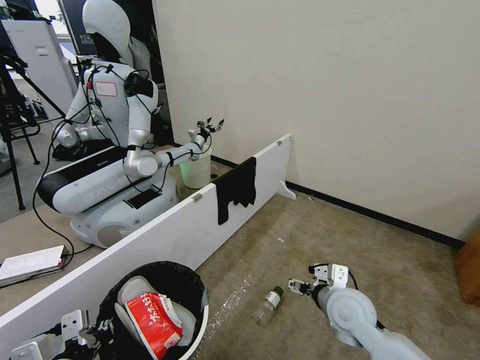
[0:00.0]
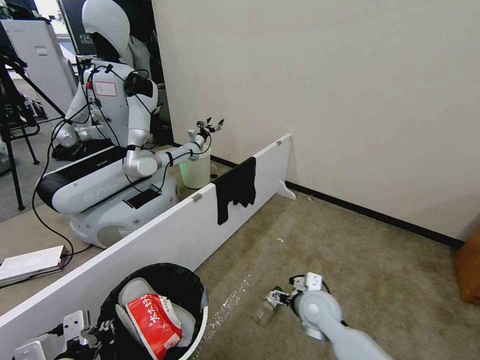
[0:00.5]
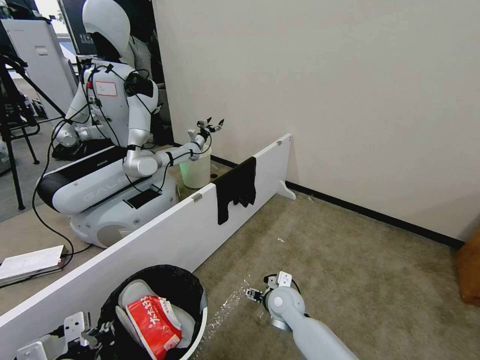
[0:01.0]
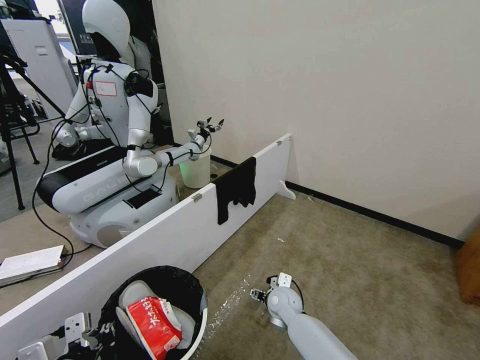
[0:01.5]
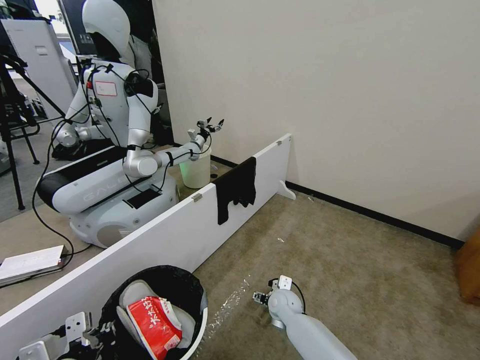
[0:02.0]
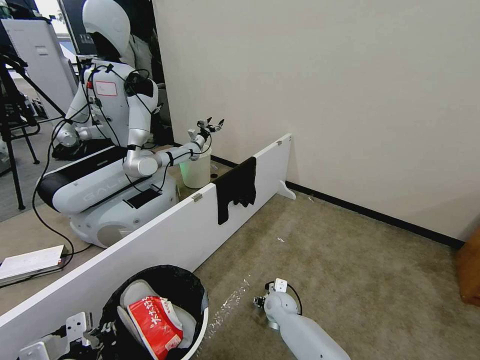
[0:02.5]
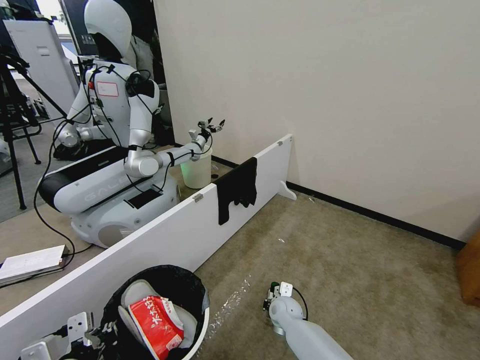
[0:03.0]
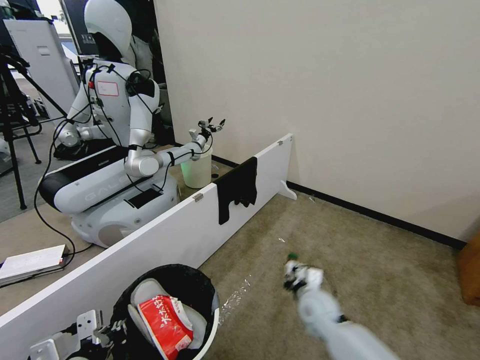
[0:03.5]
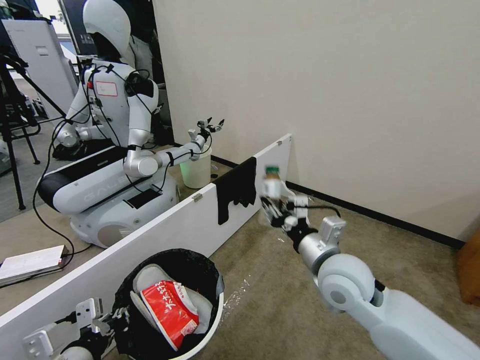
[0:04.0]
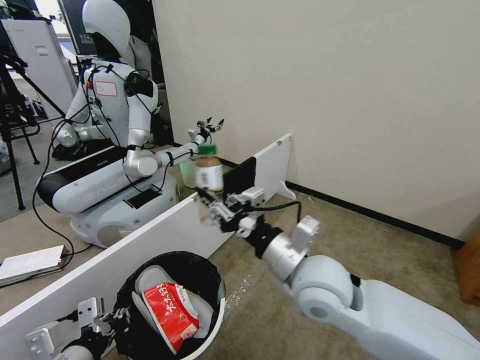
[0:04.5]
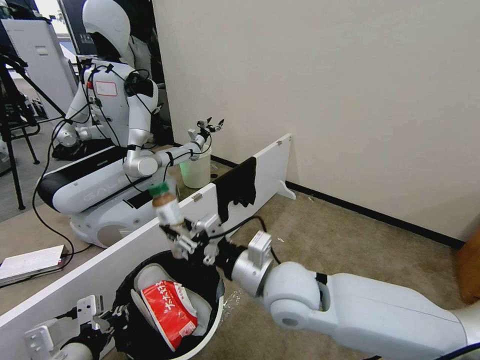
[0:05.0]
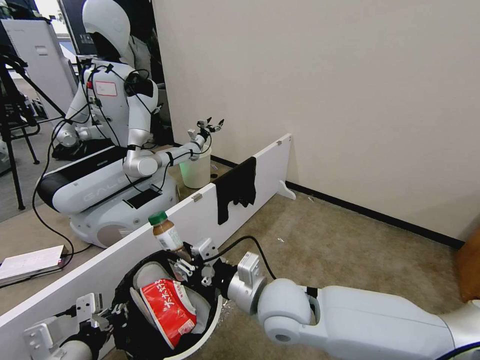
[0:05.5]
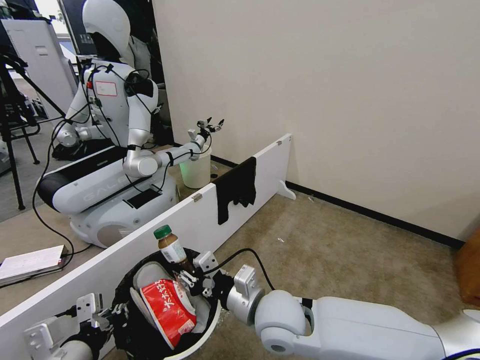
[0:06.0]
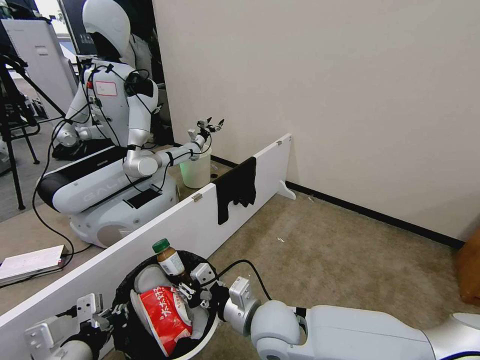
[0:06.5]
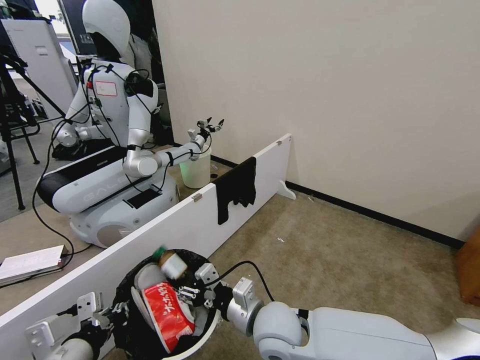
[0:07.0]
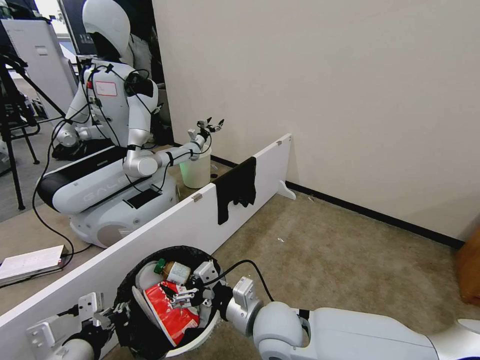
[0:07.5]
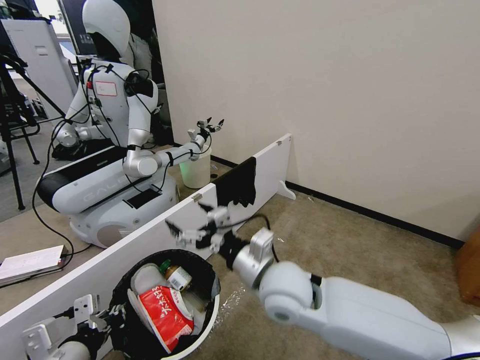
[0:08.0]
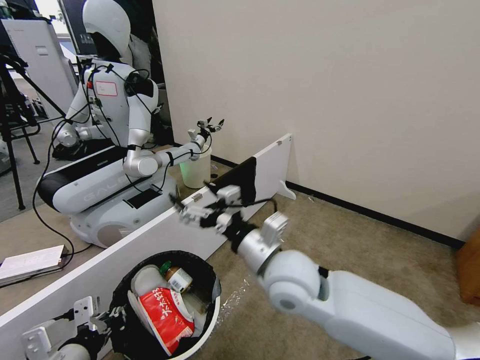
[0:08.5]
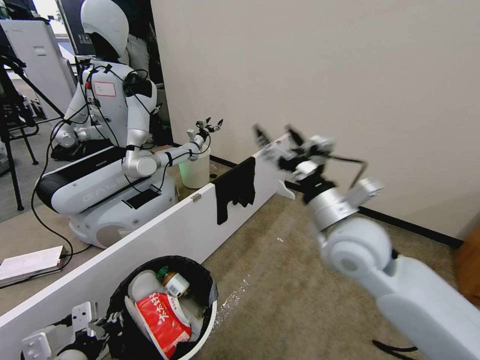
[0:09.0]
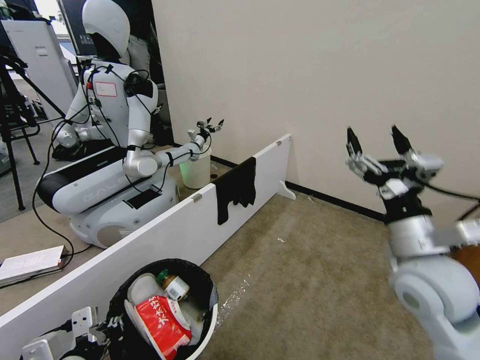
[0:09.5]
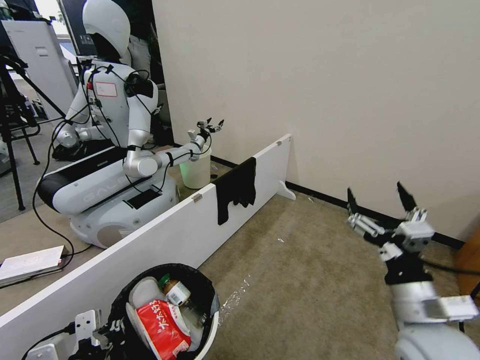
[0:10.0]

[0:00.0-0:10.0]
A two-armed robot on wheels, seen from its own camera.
Task of the whole recording: Pick up the trash bin, then pick up the garbage from the floor and place it into the trash bin.
0:00.0 to 0:02.0: The right gripper heads downward, to the left and forward, covering some 25 cm.
0:02.0 to 0:04.0: The right gripper shifts roughly 25 cm upward, and closes up.
0:04.0 to 0:06.0: The right gripper travels to the left and backward by roughly 15 cm.
0:06.0 to 0:08.0: The right gripper is displaced upward by about 5 cm, and opens.
0:08.0 to 0:10.0: The right gripper shifts roughly 25 cm to the right and backward.

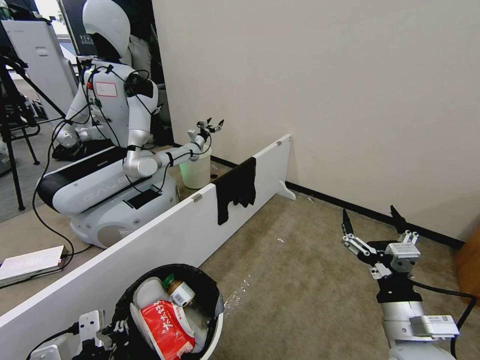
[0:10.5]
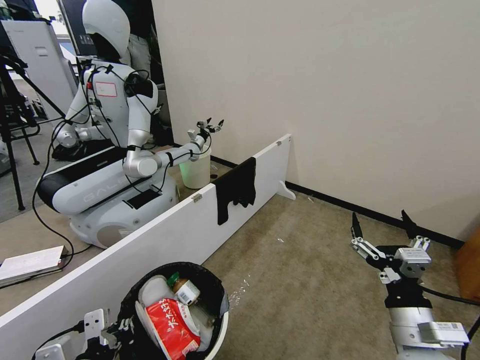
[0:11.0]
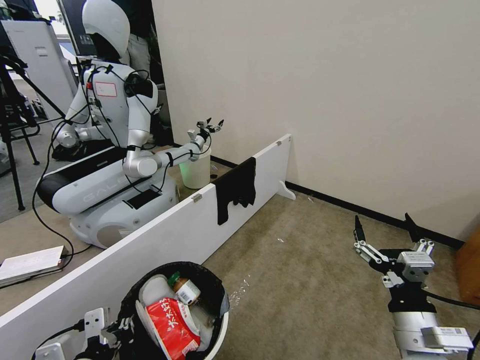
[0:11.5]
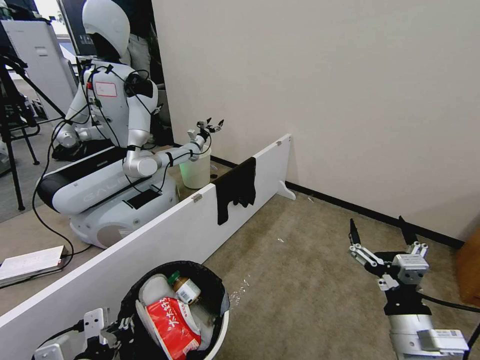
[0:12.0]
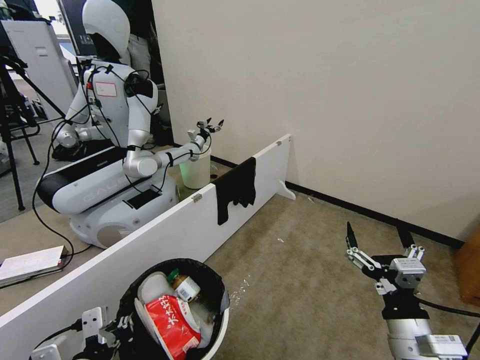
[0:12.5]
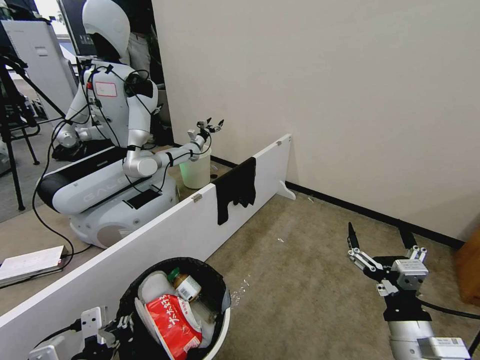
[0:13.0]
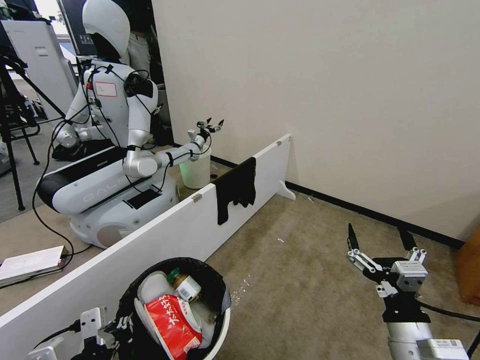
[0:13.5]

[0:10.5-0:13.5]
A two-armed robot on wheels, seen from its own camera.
Task of the whole recording: Pick up the trash bin, then pick up the garbage from the floor and place it into the trash bin.
0:10.5 to 0:13.5: The grippers move only a little.
